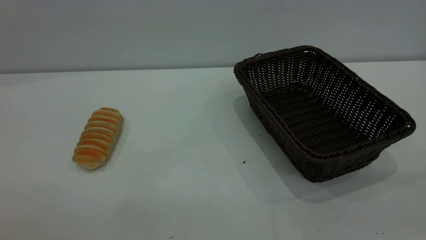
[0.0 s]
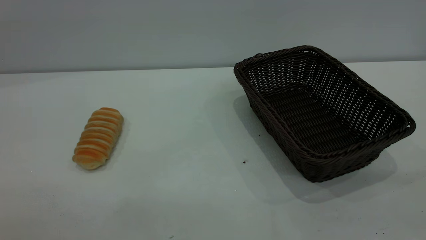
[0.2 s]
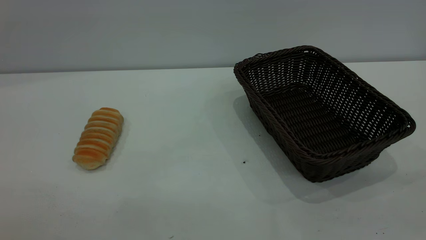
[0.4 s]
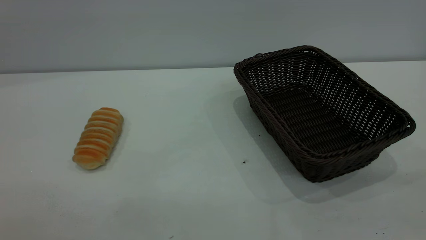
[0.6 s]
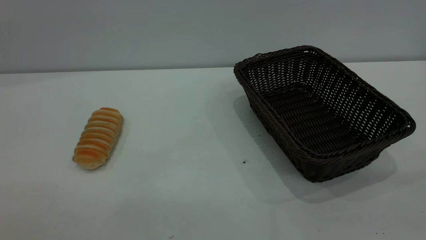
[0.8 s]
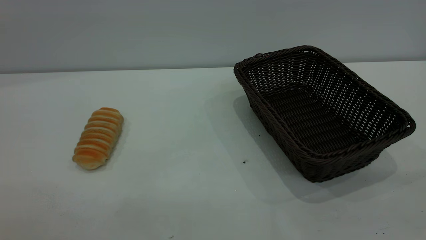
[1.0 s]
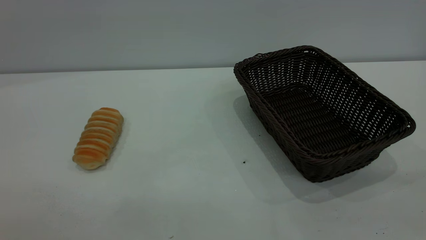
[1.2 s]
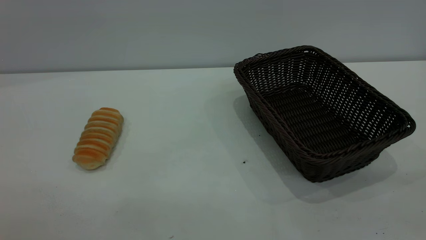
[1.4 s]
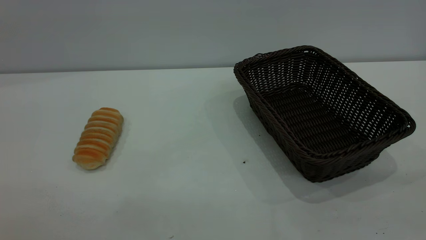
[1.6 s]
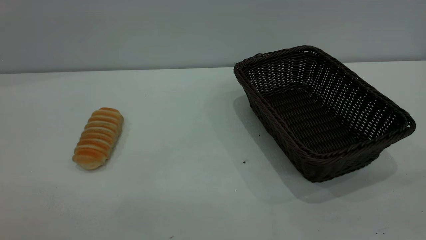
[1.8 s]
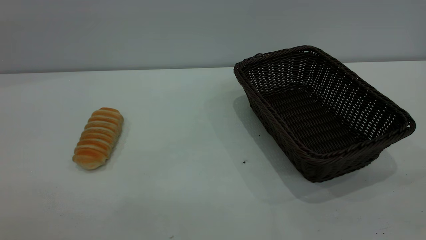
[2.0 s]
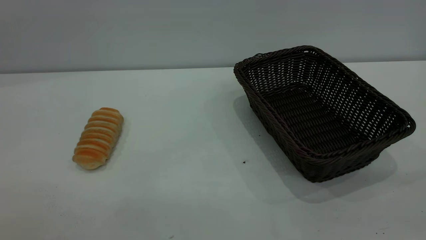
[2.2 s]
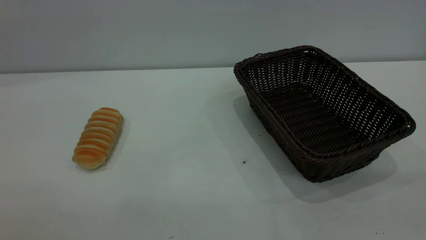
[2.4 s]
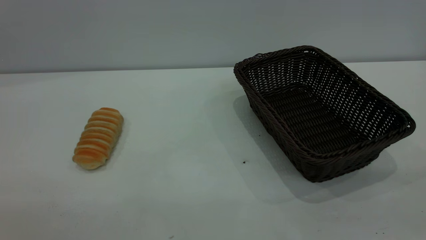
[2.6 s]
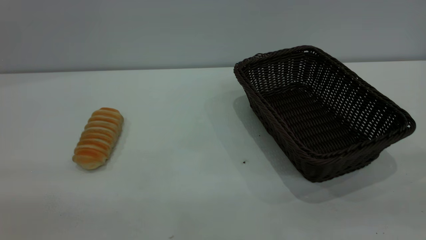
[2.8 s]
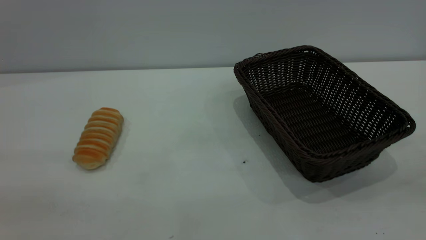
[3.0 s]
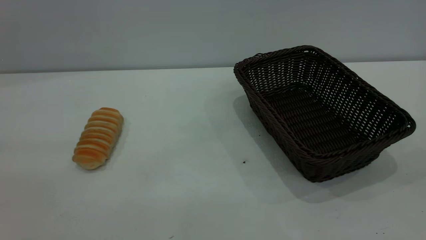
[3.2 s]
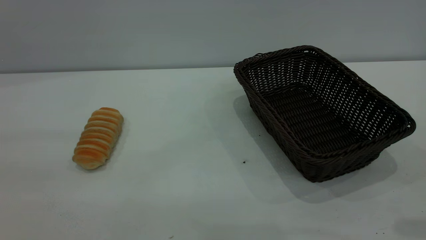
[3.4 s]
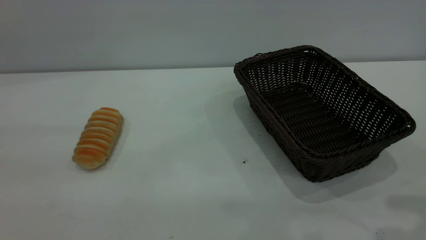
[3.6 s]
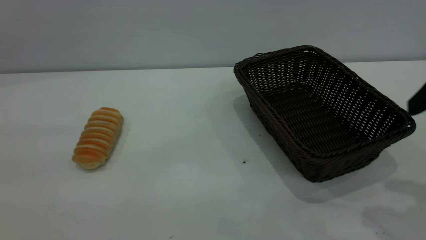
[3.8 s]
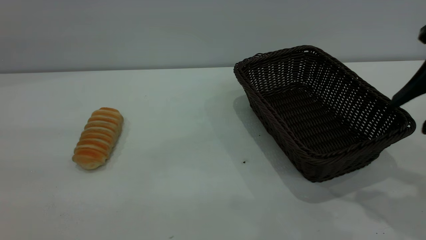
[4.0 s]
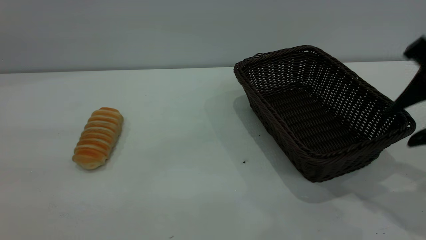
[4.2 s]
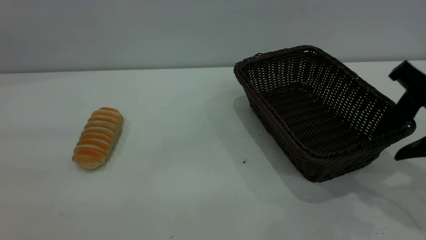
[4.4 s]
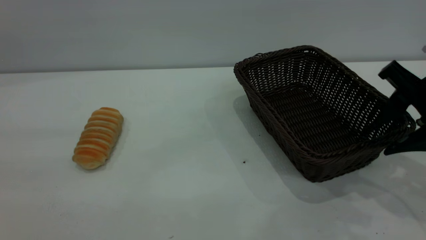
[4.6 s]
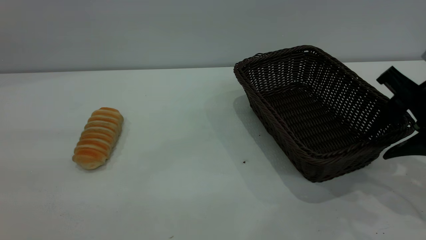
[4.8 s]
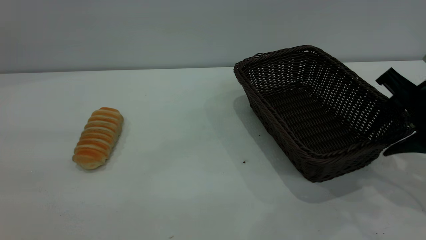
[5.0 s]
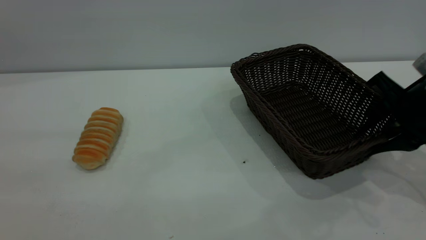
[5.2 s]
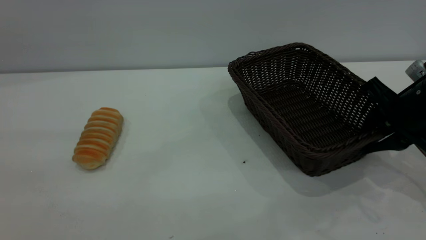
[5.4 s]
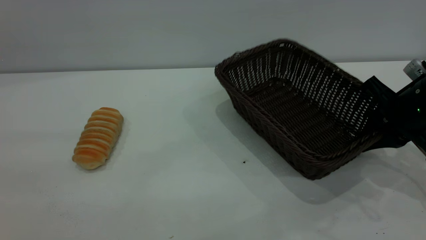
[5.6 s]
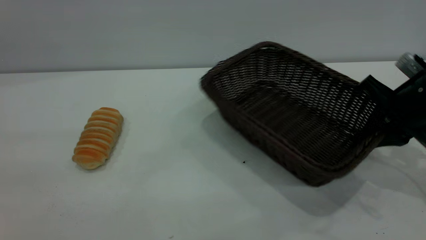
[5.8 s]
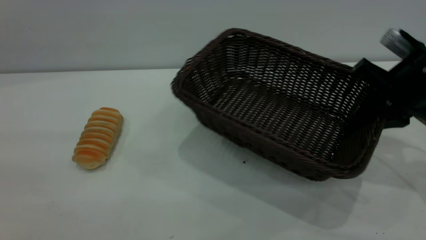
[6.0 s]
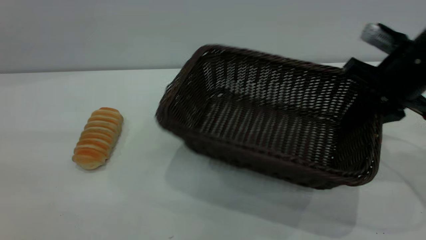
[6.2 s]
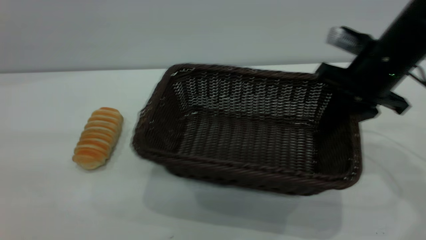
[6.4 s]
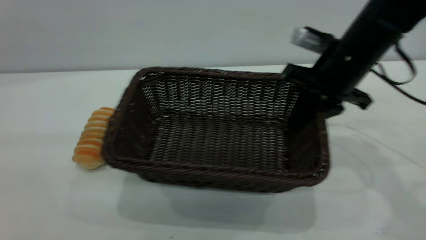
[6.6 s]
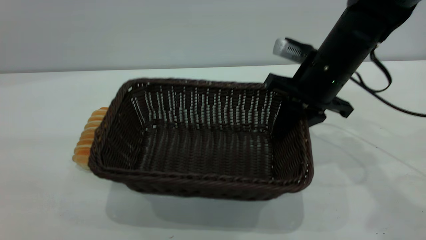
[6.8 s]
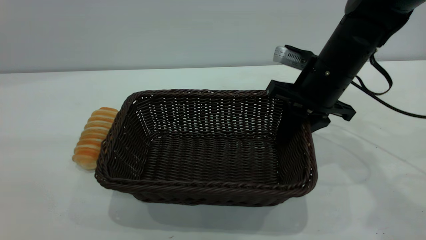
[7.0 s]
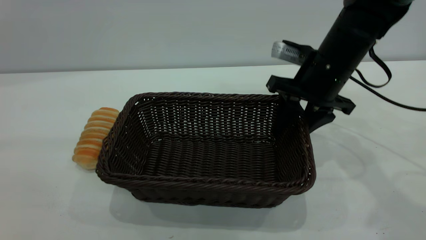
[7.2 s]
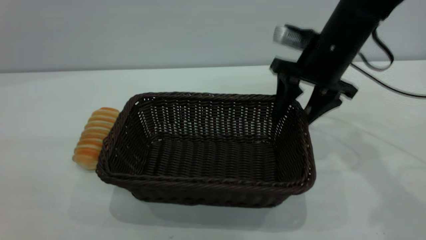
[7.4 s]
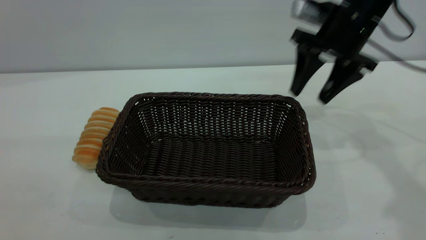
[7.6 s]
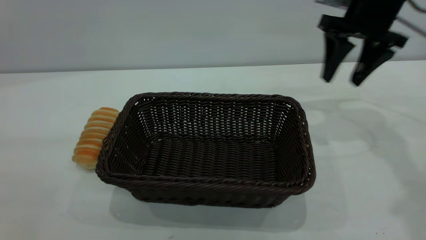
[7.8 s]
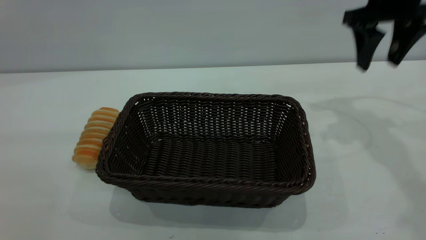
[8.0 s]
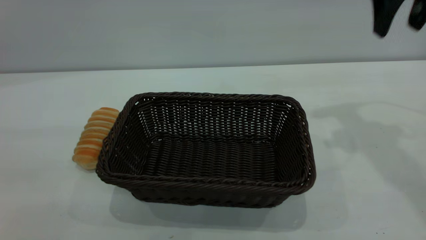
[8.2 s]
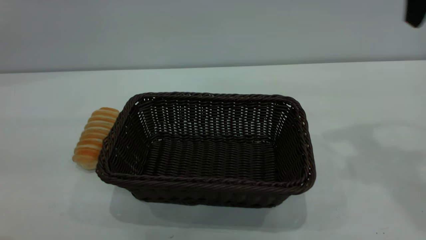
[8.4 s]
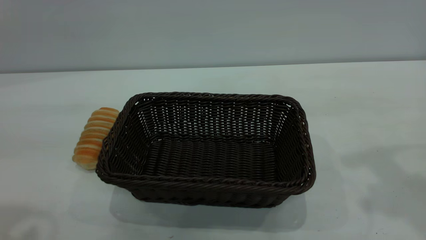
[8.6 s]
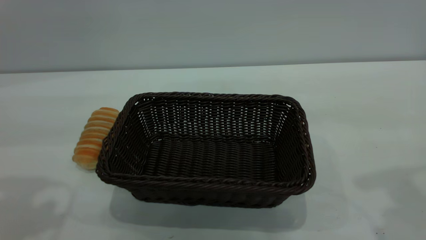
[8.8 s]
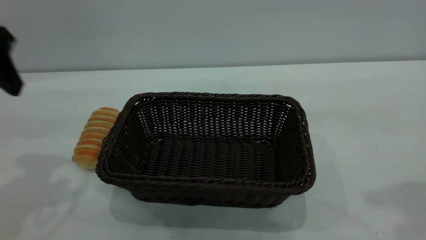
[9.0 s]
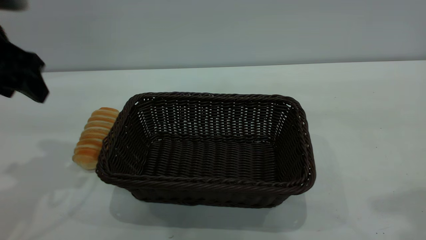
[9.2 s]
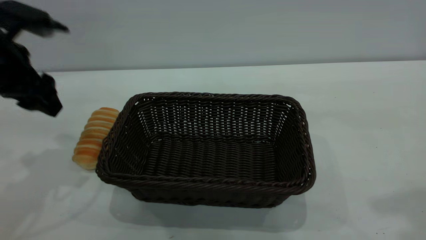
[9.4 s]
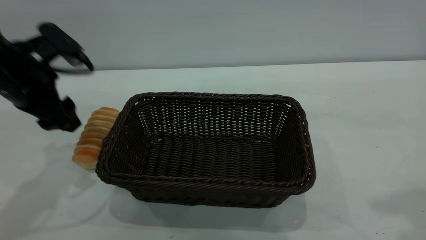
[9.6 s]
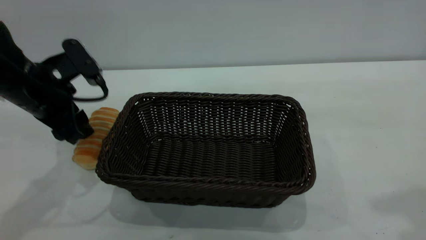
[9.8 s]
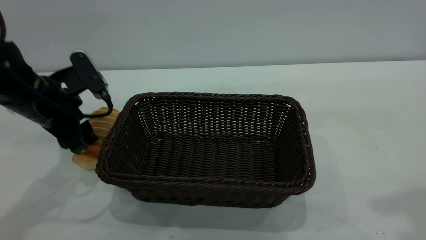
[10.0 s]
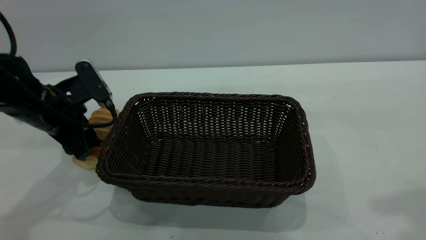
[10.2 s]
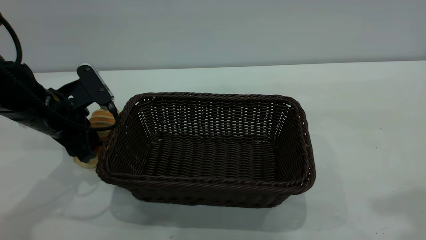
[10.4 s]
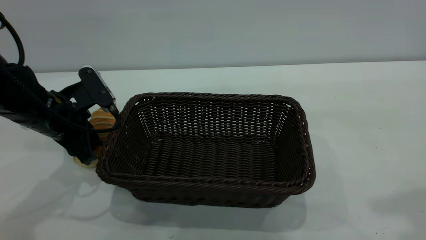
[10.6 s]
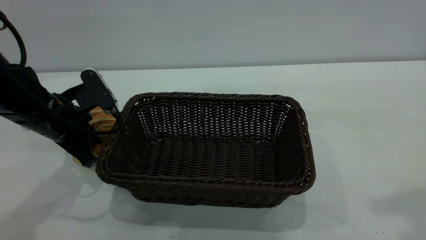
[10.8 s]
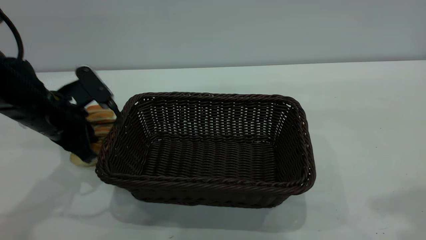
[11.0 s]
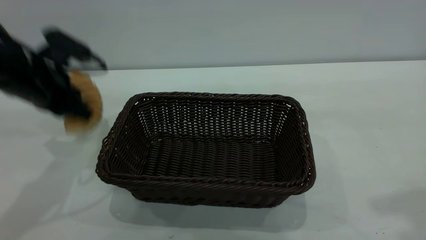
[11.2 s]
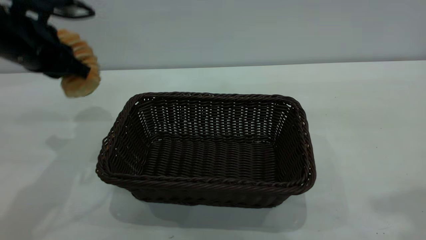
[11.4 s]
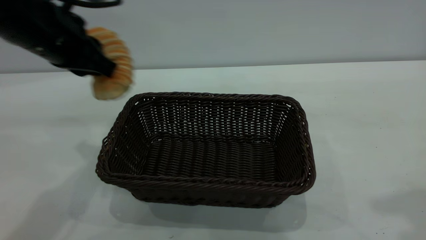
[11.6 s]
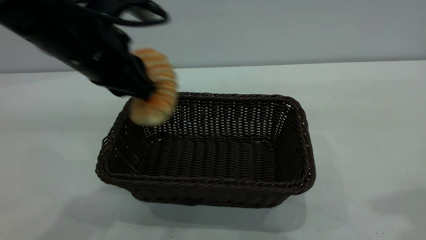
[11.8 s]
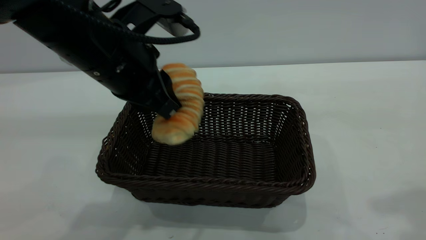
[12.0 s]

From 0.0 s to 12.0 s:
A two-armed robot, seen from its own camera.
Task of the whole recording: One hand grasps the black basket and places it in the middle of the table, while the other hand picks up the long bread and puts it into the black basket.
Step, from 0.0 s to 7.4 s: Move the basket to the center of view.
From 0.0 s to 1.6 s: Both grippers stay put.
From 3.0 s to 4.4 s: The right gripper shifts about 25 cm forward and downward.
From 4.4 s to 6.0 s: The right gripper moves forward, roughly 5 cm, and closes.
From 6.0 s to 7.6 s: The right gripper travels forward and to the left by some 10 cm, and opens up.
From 7.6 s to 9.0 s: The right gripper is displaced backward and upward by approximately 30 cm. Meanwhile the left gripper goes approximately 25 cm forward and downward.
From 9.0 s to 10.4 s: The left gripper moves downward, about 20 cm.
From 10.4 s to 12.0 s: The left gripper shifts approximately 20 cm to the right, upward and backward, and closes up.

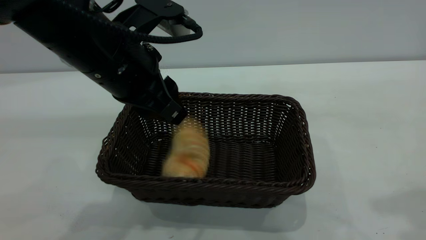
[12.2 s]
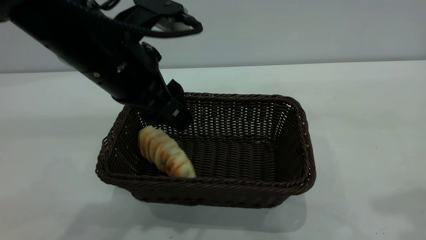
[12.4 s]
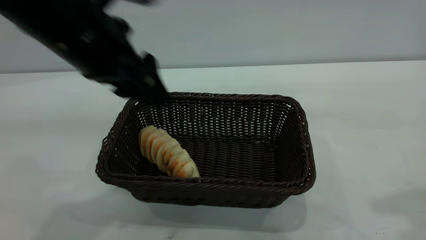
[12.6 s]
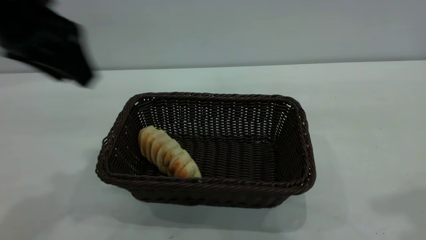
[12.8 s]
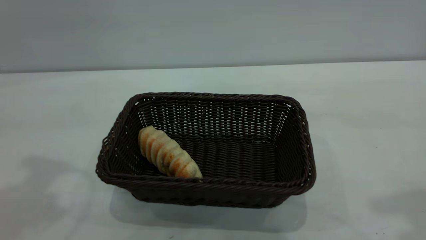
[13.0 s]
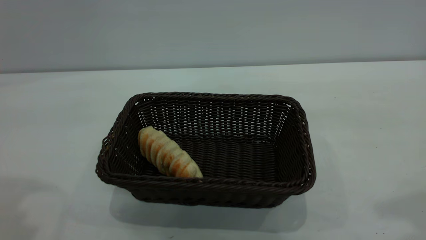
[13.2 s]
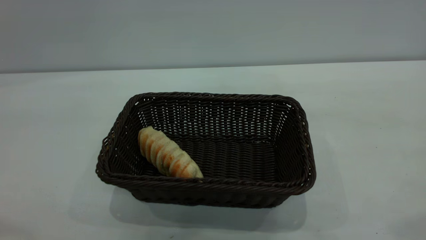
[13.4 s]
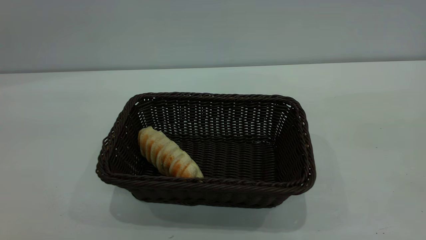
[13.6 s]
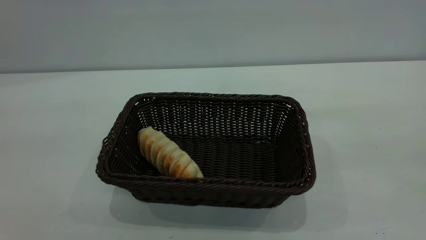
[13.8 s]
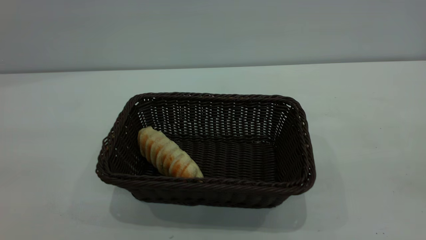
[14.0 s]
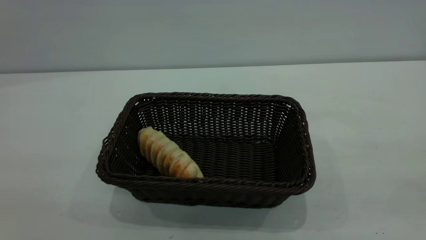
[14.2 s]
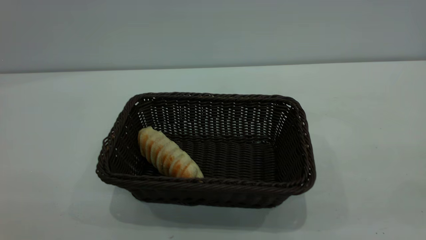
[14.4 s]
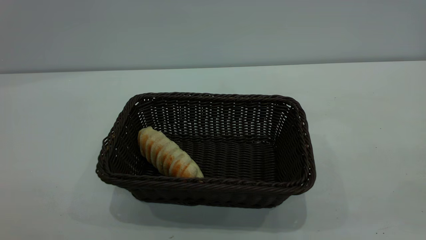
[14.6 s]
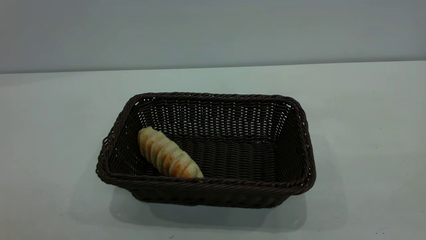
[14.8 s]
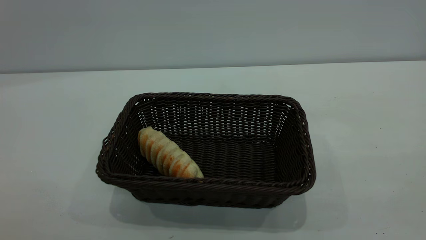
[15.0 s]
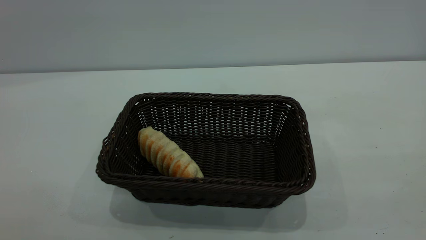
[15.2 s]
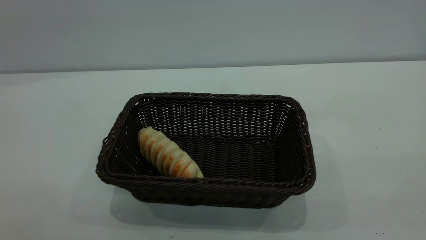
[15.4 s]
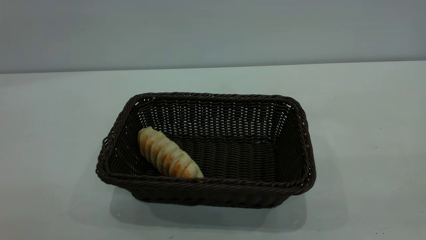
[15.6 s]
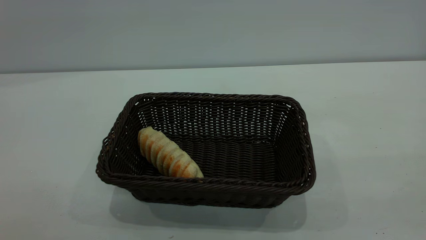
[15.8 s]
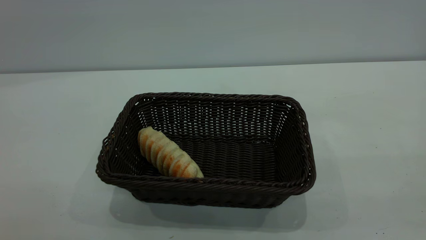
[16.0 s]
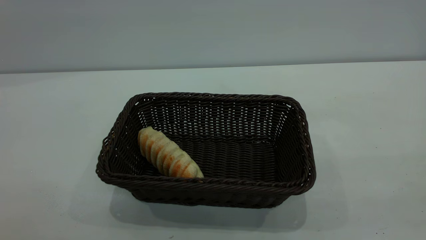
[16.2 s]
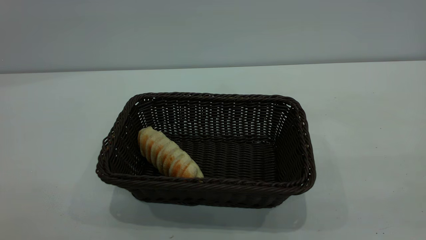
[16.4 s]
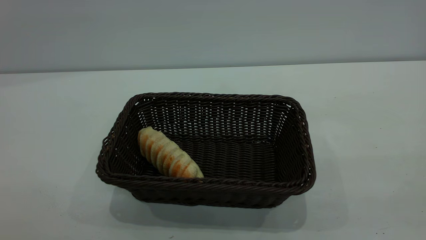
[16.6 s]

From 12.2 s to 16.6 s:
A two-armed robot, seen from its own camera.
Task of the whole recording: One hand grasps the black basket and places it in the middle of the table, while the other hand picks up the long bread and puts it into the black basket.
From 12.2 s to 13.6 s: The left gripper moves upward, backward and to the left, about 35 cm. The right gripper shifts approximately 10 cm backward.
From 15.2 s to 16.6 s: Neither gripper changes place.
